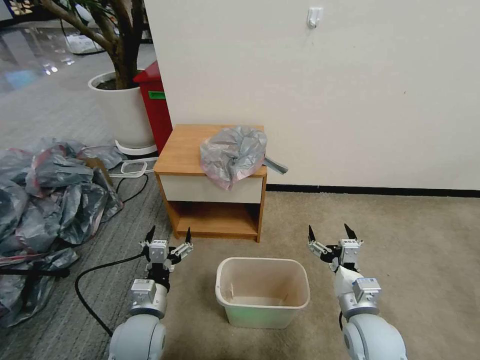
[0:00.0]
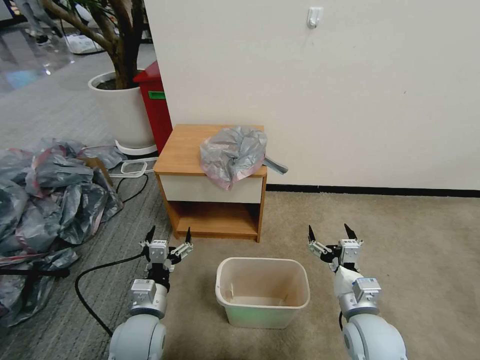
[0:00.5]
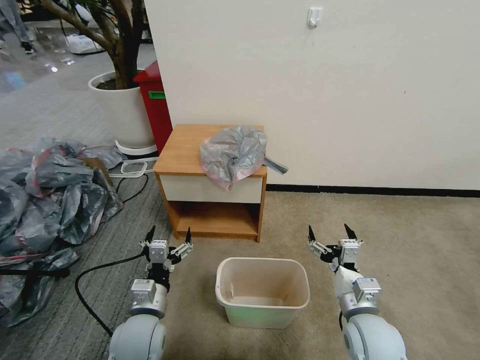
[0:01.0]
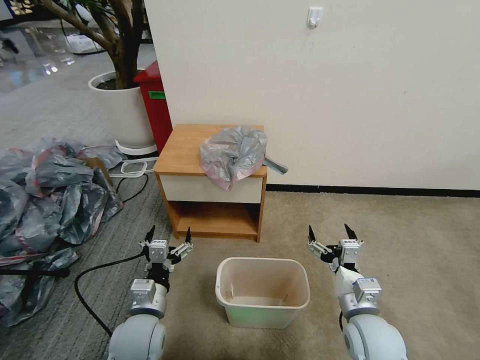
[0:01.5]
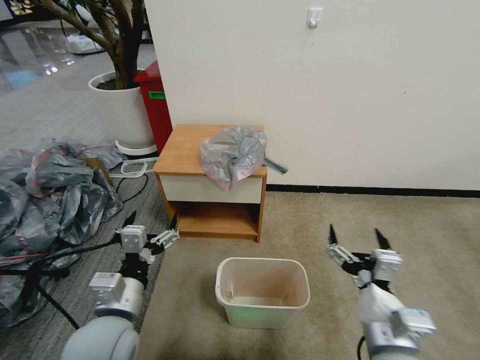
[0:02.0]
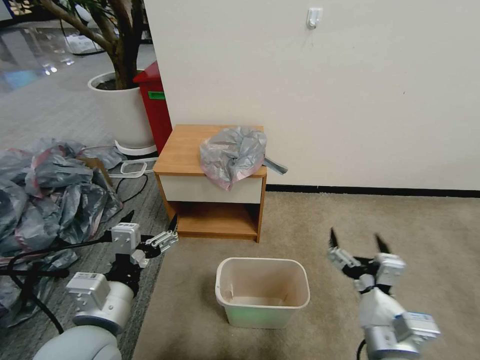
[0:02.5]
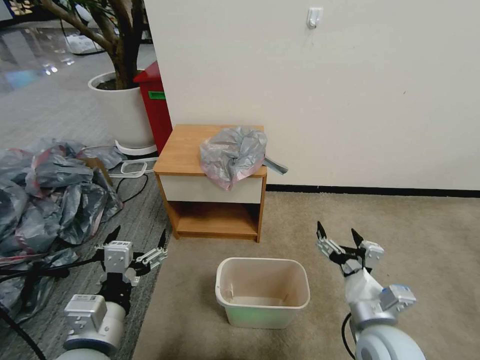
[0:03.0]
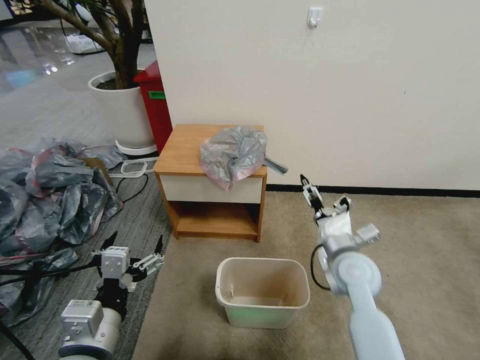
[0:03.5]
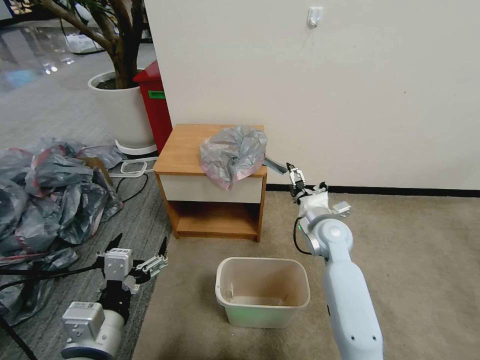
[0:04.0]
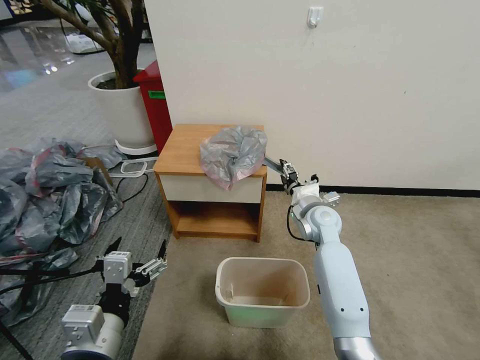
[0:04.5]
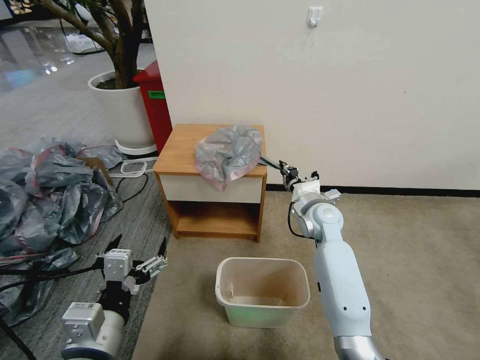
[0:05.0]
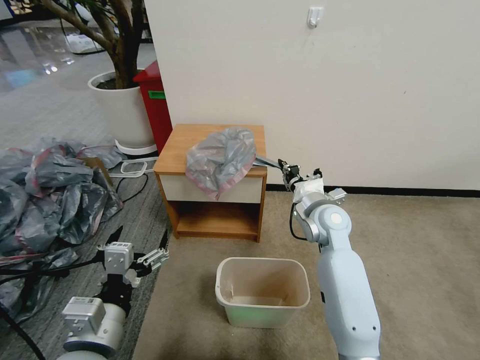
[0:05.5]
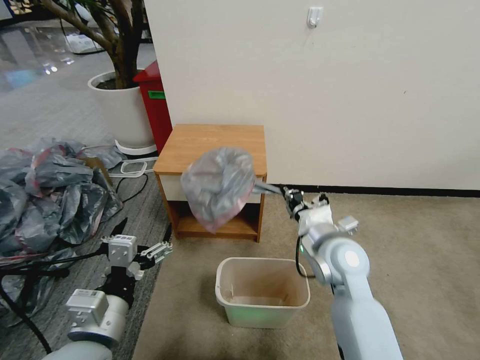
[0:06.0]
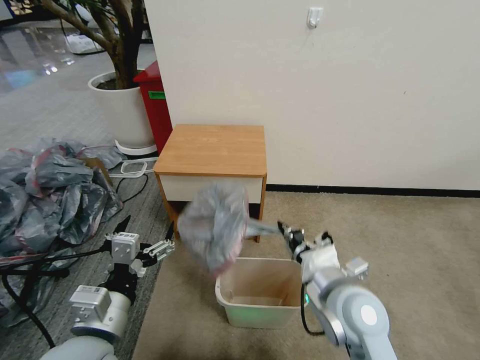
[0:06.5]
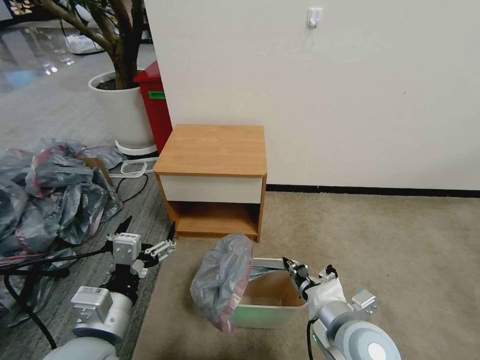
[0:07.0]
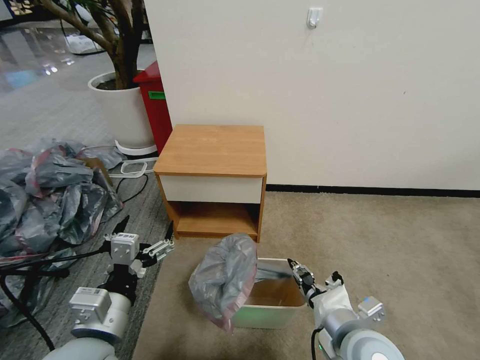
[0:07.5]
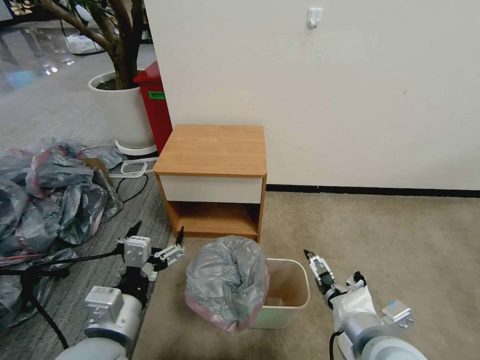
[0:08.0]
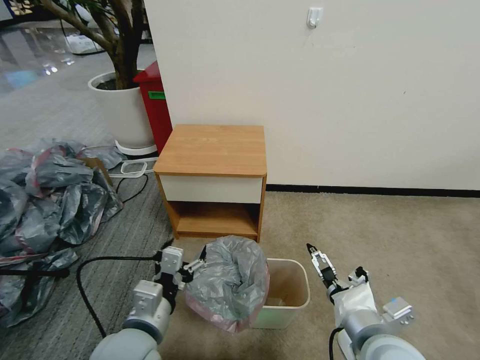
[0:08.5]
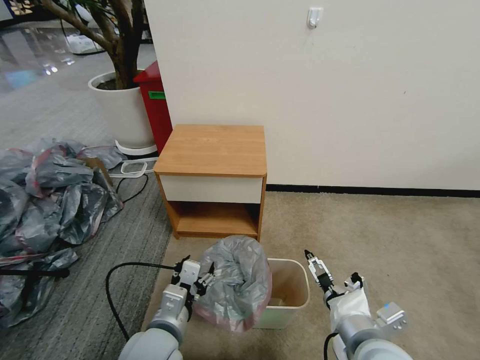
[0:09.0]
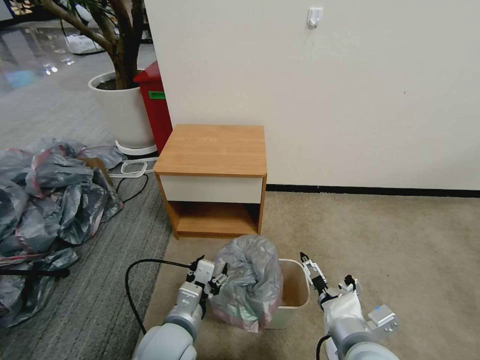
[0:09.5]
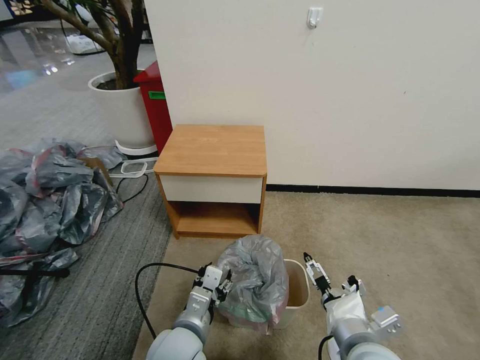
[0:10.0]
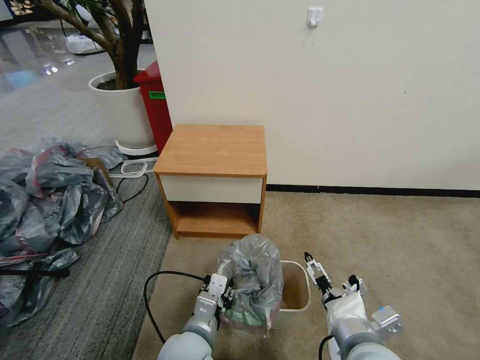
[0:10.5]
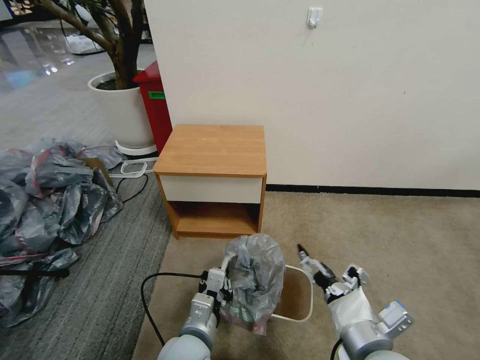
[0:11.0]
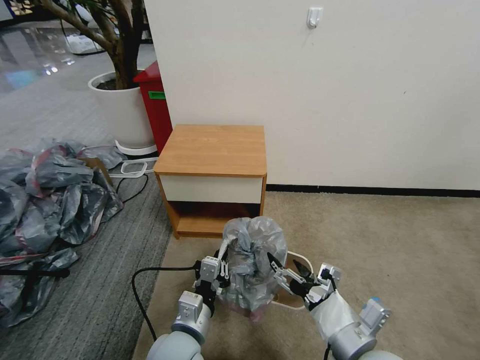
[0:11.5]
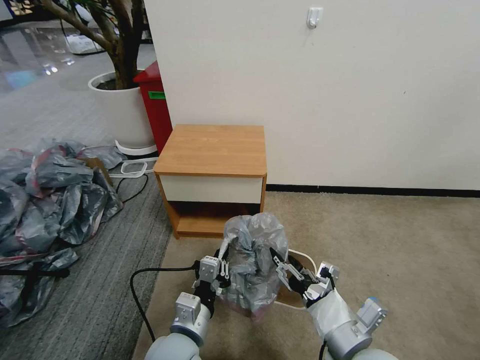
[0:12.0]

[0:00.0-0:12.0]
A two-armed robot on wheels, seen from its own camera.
Task of the whole recording: Pick up the garbage bag from the table and place it over the trash can.
0:02.0 to 0:04.0: The left gripper goes about 5 cm backward. The right gripper goes about 30 cm forward.
0:04.0 to 0:06.0: The right gripper moves approximately 5 cm, and closes its fingers.
0:06.0 to 0:08.0: The right gripper goes roughly 20 cm backward, and opens its fingers.
0:08.0 to 0:10.0: The left gripper heads downward and to the right, covering roughly 15 cm, and closes up.
0:10.0 to 0:12.0: The left gripper closes up.

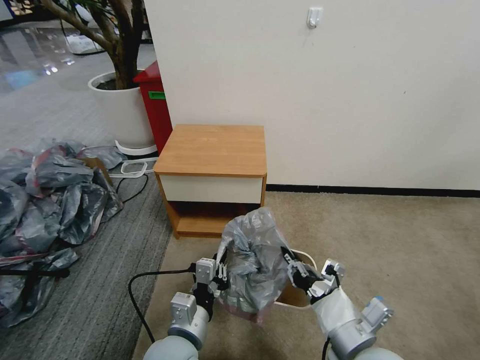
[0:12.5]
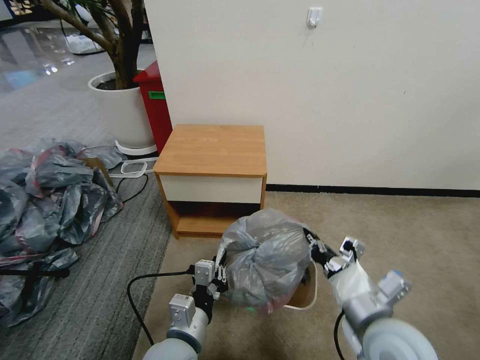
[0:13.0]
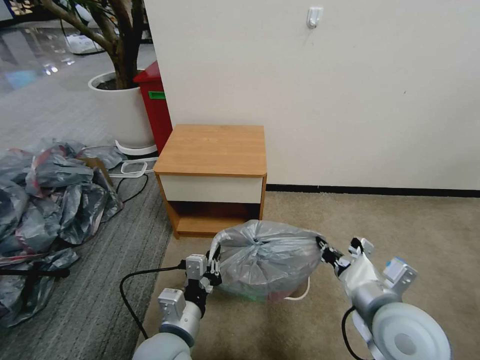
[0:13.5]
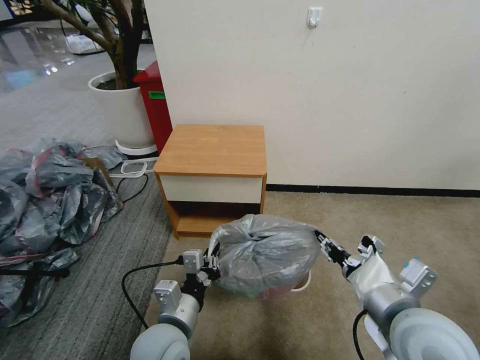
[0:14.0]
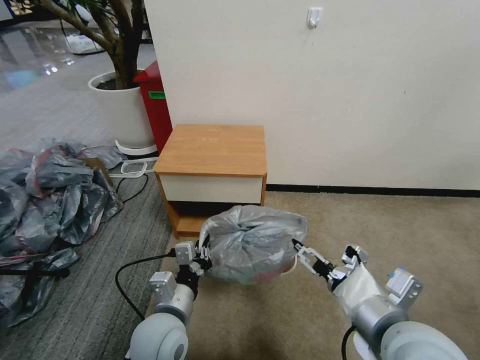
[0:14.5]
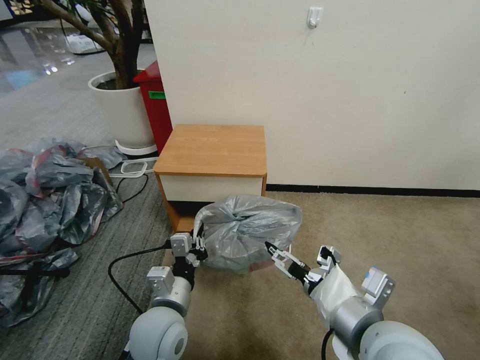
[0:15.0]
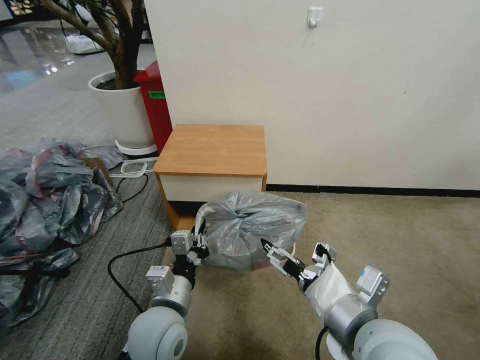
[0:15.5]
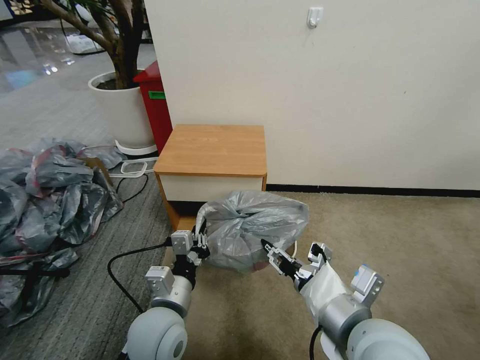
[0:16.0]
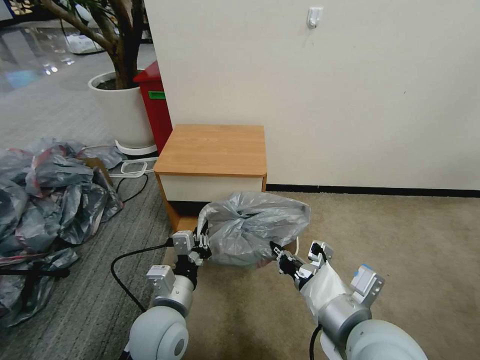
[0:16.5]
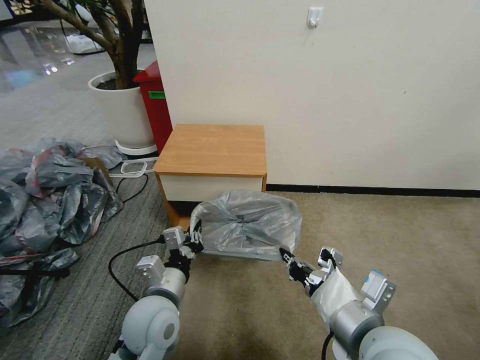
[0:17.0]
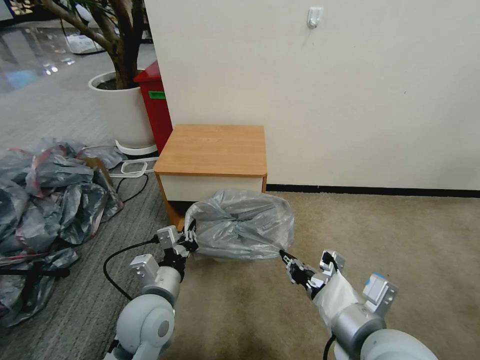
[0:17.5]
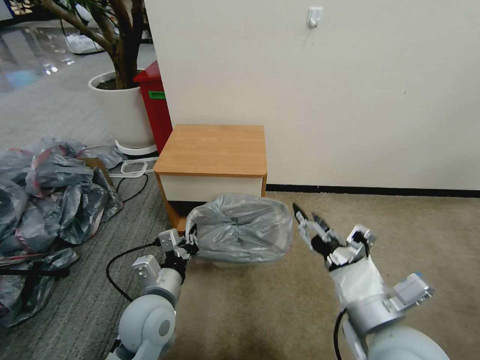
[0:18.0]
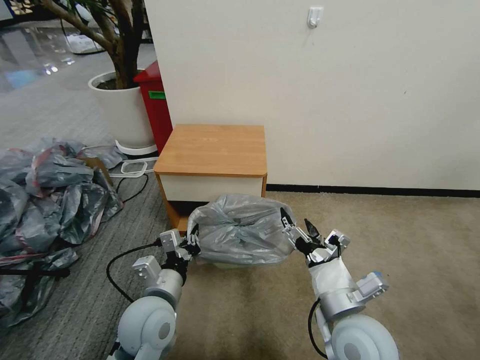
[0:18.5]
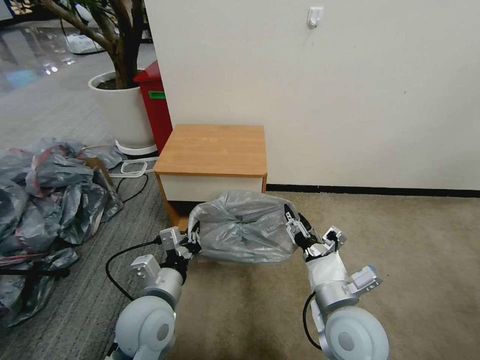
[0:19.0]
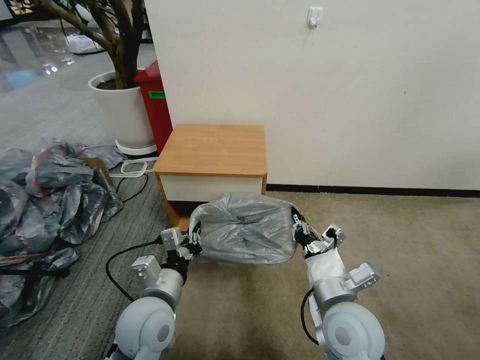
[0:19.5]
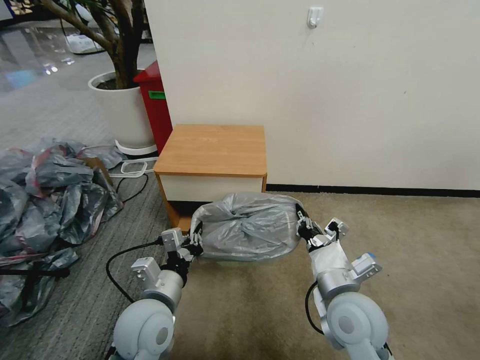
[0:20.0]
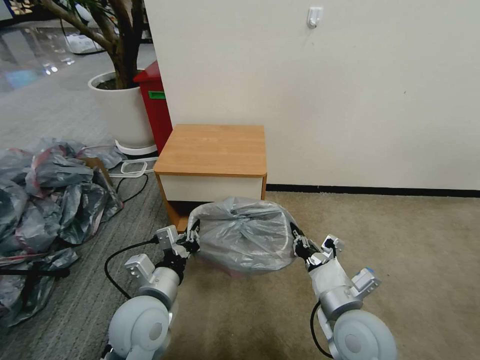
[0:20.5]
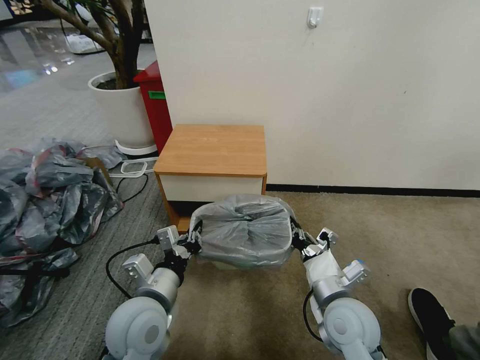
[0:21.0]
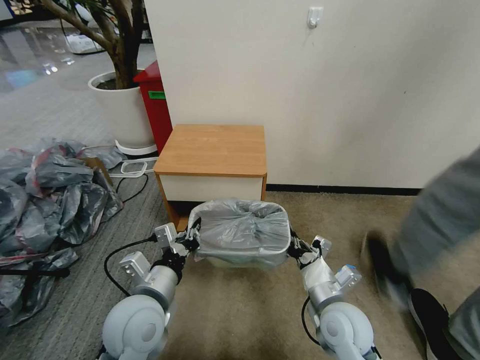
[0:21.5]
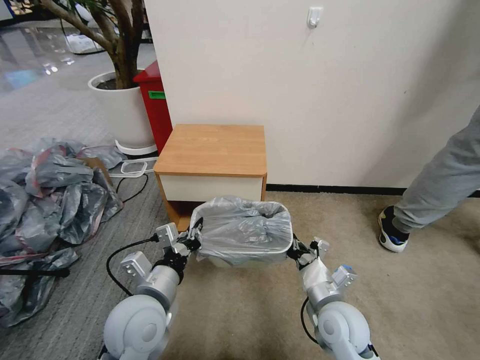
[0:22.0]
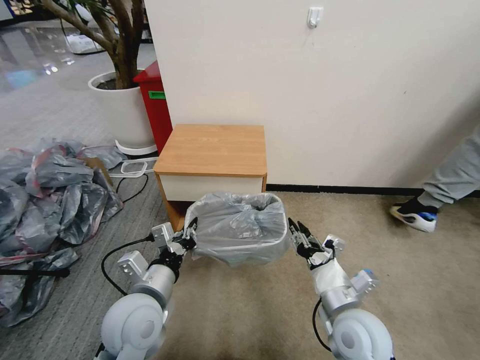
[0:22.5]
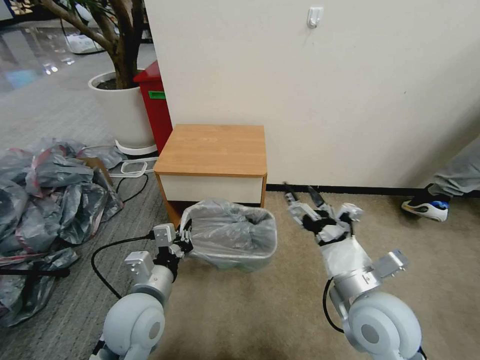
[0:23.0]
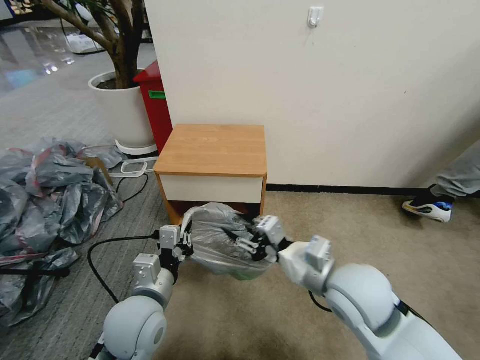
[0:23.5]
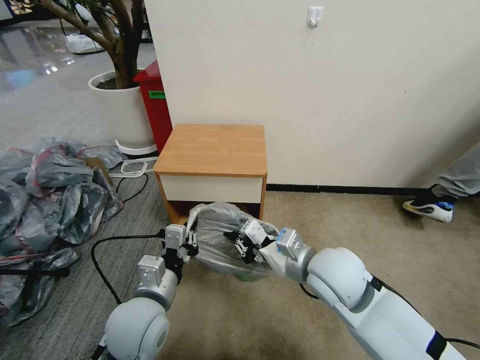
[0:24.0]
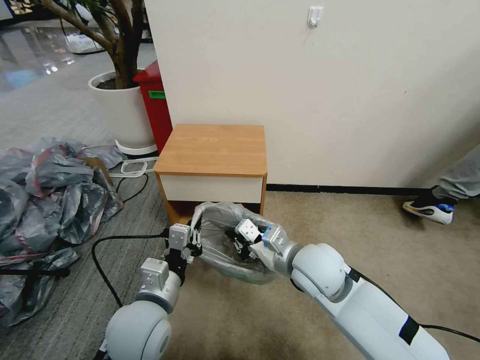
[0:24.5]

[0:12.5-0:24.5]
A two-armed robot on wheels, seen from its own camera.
Task of the whole recording: Pick up the garbage bag from the table and place it over the trash can.
0:12.5 to 0:14.5: The right gripper goes about 10 cm upward, and opens.
0:14.5 to 0:16.5: The right gripper closes.
0:16.5 to 0:18.5: The right gripper heads downward, covering approximately 10 cm, and opens its fingers.
0:18.5 to 0:20.5: The right gripper closes its fingers.
0:20.5 to 0:22.5: The right gripper opens.
0:22.5 to 0:24.5: The right gripper shifts some 15 cm forward, upward and to the left, and closes.

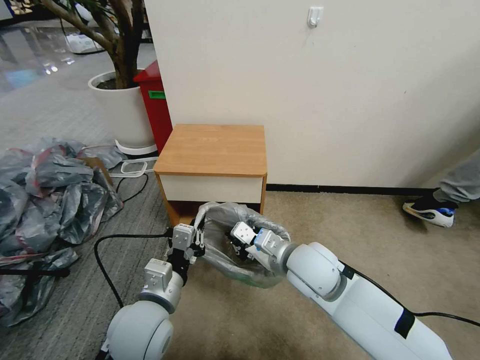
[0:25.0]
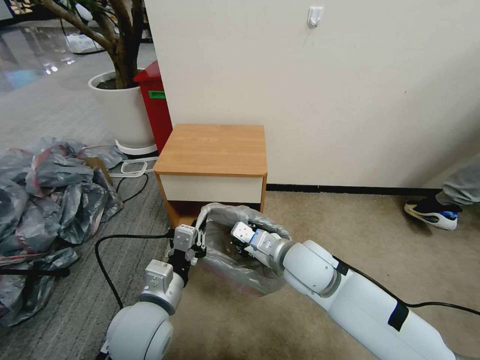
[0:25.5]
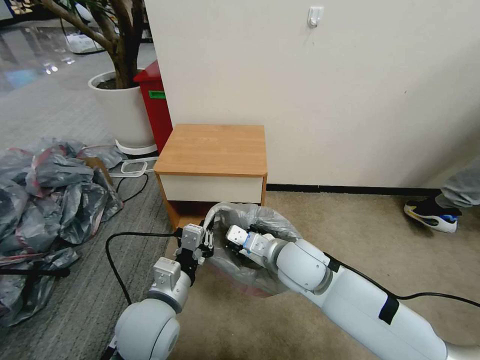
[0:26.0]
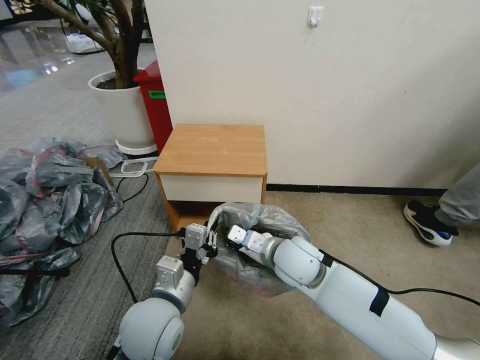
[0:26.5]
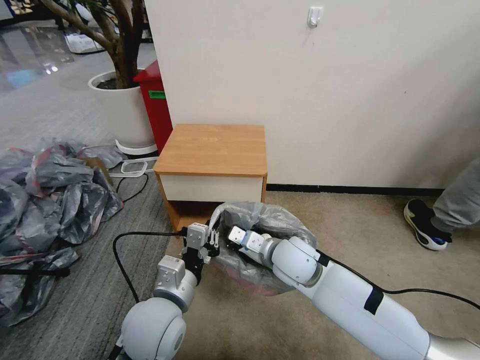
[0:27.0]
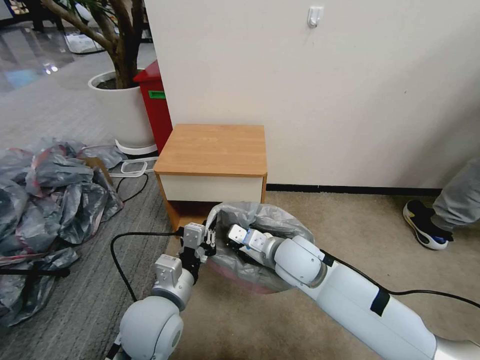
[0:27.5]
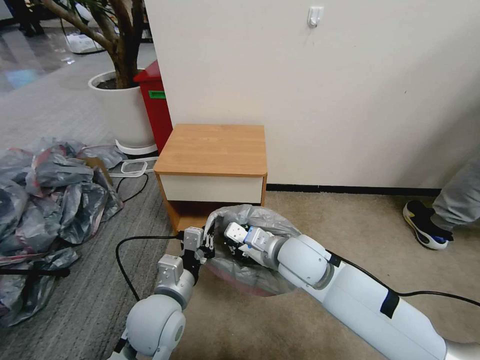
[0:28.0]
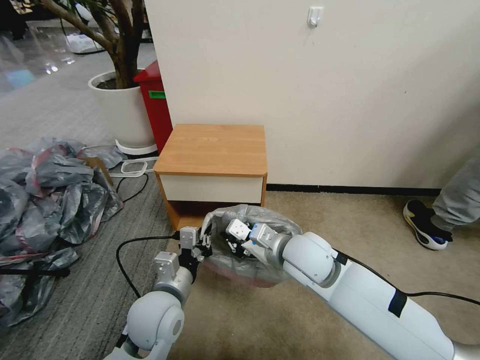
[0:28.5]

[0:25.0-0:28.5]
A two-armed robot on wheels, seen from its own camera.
Task of the whole recording: Pick up the garbage bag from the table and place it over the trash can.
0:25.0 to 0:27.0: The right gripper shifts by some 5 cm.
0:27.0 to 0:28.5: The right gripper changes place by approximately 5 cm.
